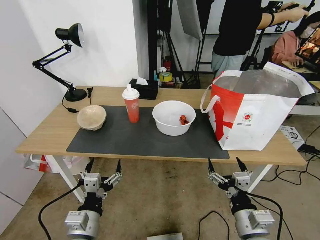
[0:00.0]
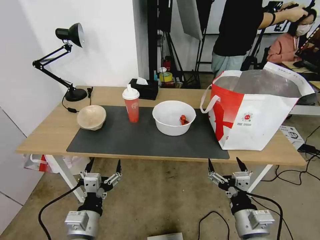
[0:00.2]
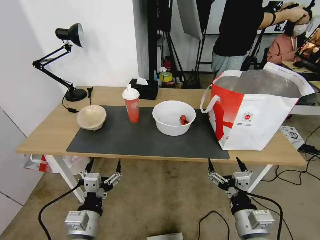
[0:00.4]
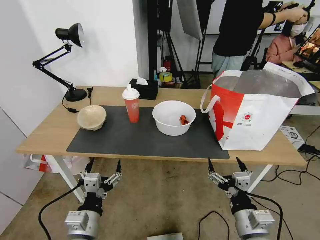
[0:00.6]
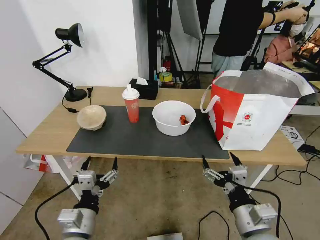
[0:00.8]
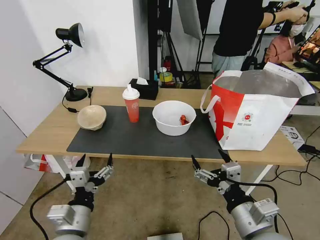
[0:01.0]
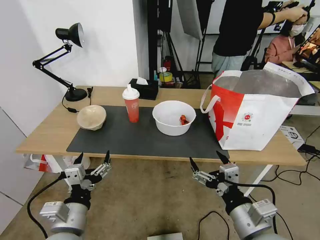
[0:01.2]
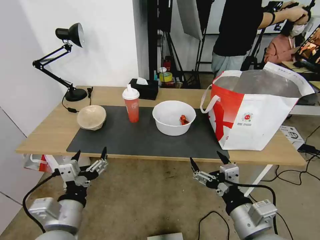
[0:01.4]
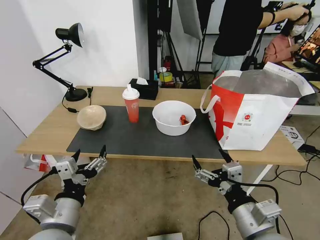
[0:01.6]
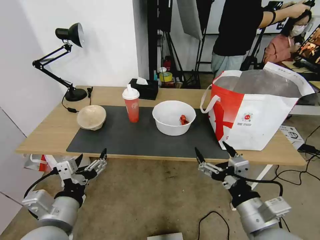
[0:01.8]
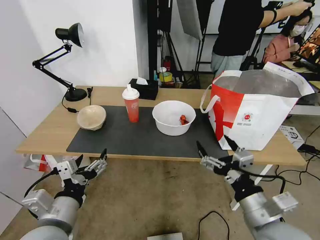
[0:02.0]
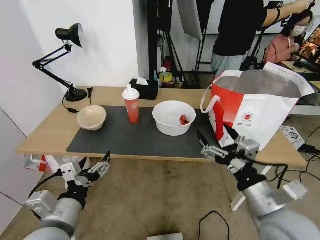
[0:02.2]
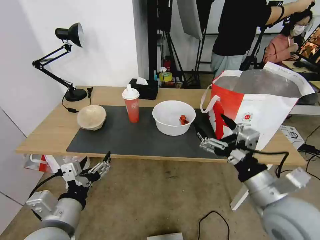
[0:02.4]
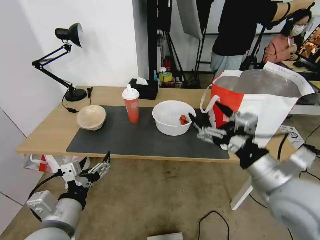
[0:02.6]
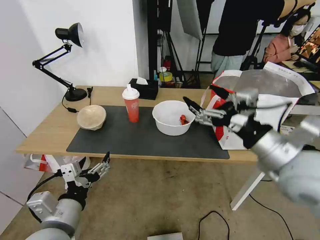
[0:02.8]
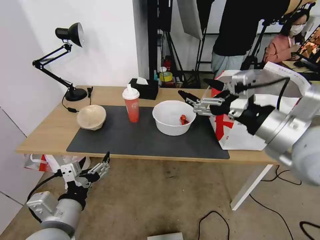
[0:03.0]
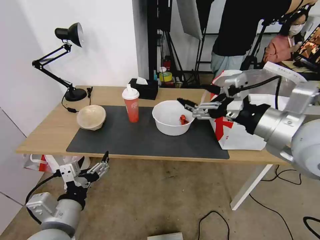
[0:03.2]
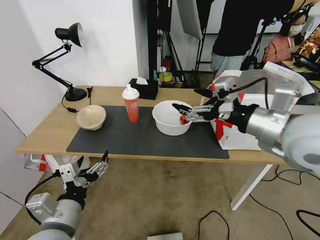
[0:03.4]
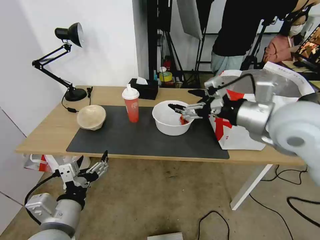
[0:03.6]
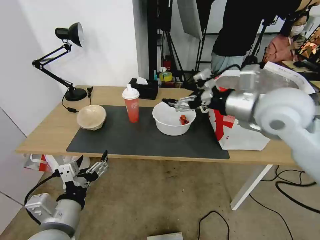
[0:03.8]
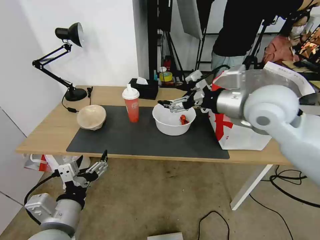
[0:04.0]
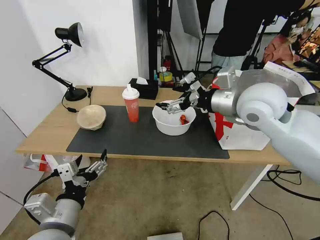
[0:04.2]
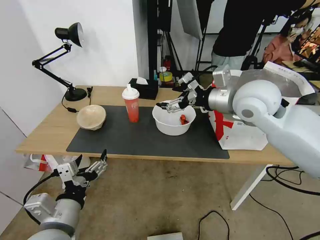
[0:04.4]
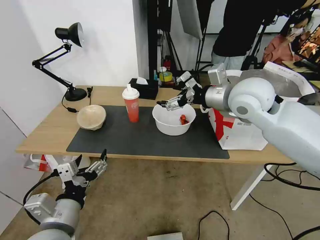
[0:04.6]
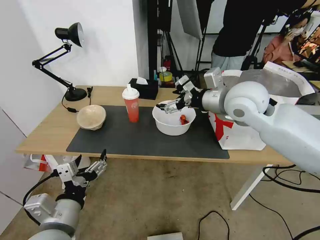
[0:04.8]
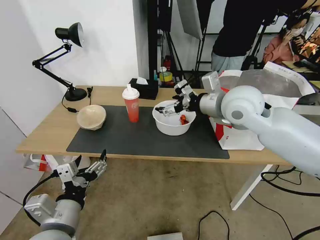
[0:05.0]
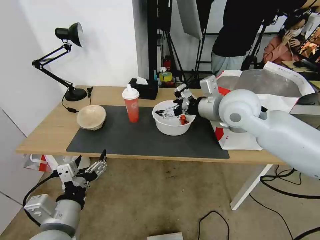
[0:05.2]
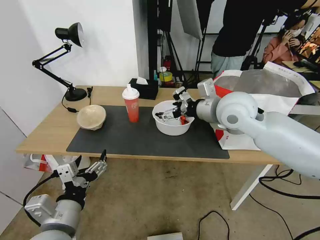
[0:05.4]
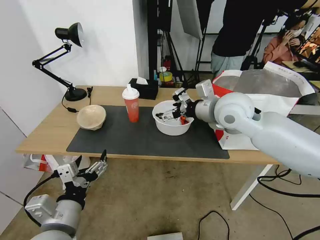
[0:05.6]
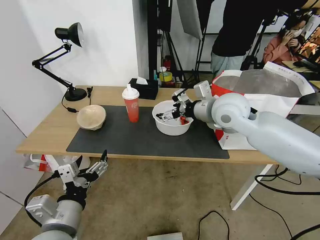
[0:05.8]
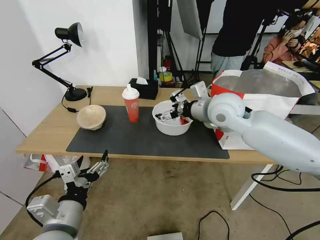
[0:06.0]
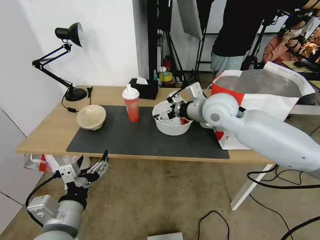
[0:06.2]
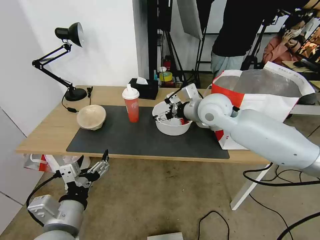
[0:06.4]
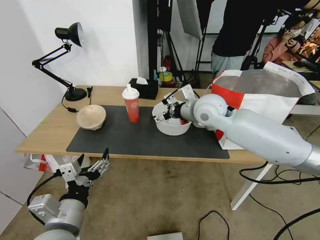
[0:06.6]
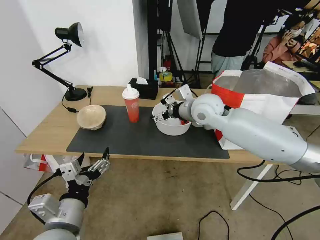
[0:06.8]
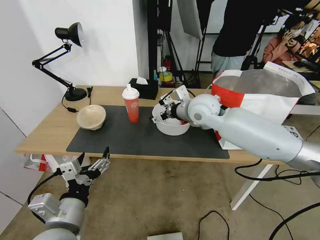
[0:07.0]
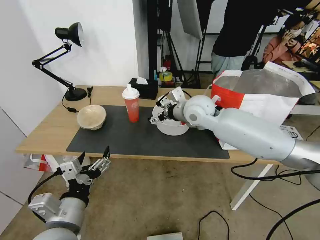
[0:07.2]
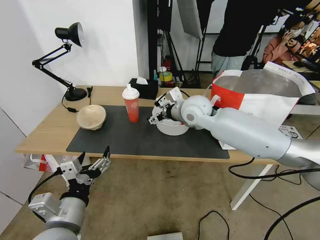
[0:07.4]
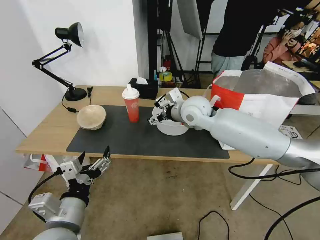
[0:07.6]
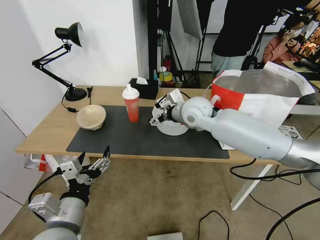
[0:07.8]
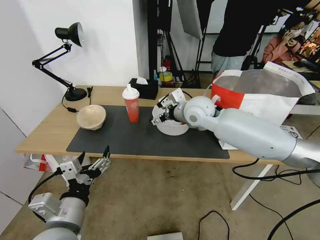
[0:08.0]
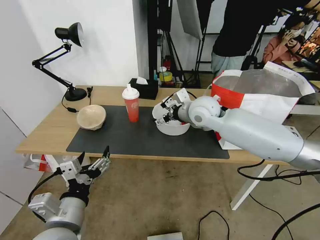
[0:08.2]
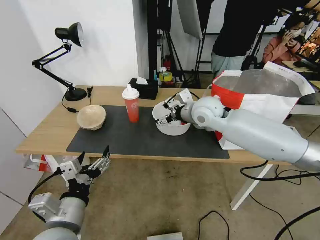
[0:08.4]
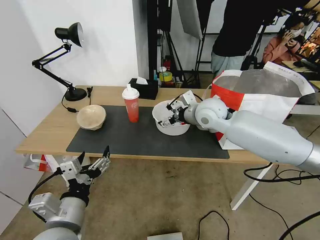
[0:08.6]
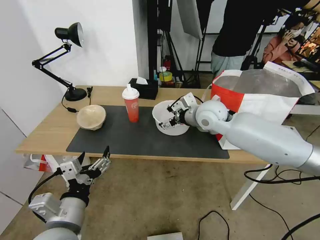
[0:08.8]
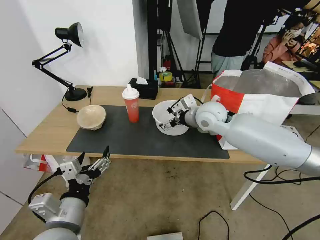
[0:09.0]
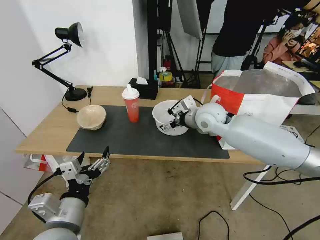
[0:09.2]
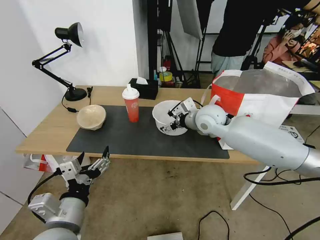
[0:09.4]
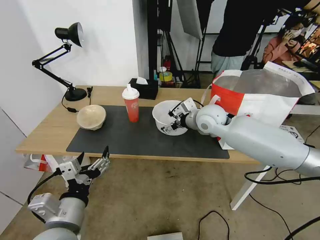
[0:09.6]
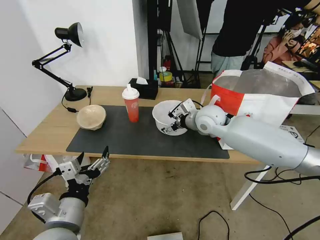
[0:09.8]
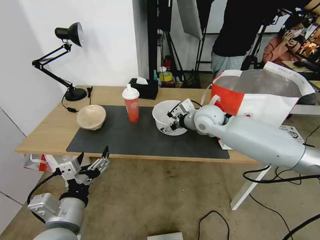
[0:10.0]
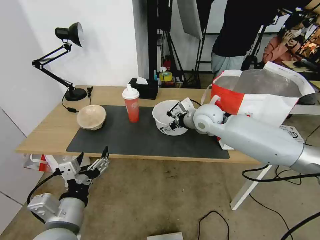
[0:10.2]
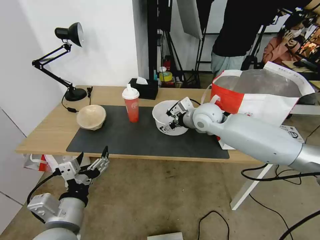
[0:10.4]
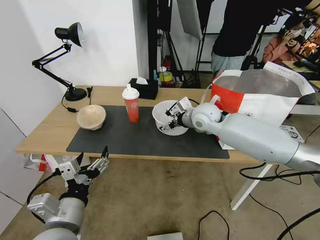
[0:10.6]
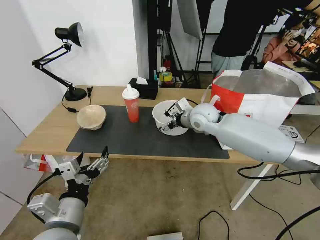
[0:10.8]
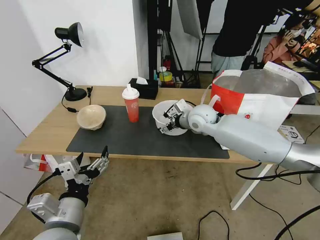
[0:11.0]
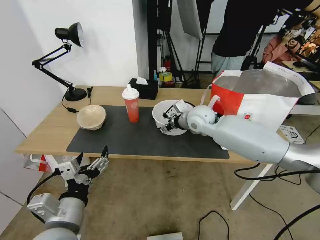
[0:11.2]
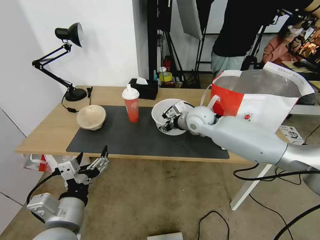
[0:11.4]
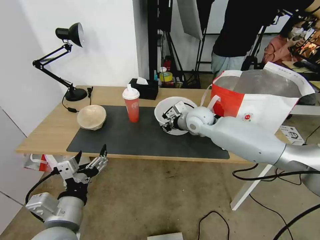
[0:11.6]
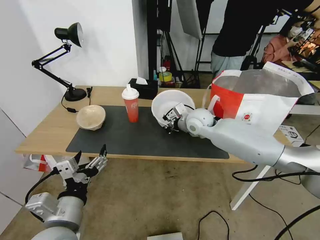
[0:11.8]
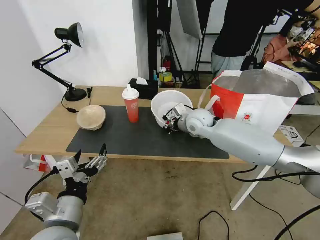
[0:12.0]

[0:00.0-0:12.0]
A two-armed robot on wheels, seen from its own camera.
Task of the whole recording: Pick up the trash from the table and place it into the takeout bag.
0:01.6 to 0:03.0: The right gripper heads upward and forward, covering some 25 cm.
0:03.0 to 0:04.4: The right gripper moves forward, some 15 cm.
0:04.4 to 0:06.0: The right gripper travels downward by some 5 cm.
0:06.0 to 0:07.6: The right gripper travels to the left by about 5 cm.
0:07.6 to 0:09.0: The right gripper moves to the right, some 5 cm.
0:09.0 to 0:10.4: The grippers make only small movements.
0:10.4 to 0:12.0: The right gripper closes up.

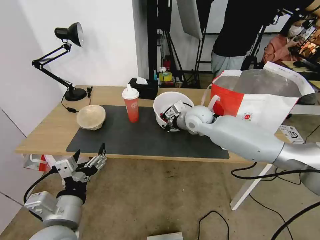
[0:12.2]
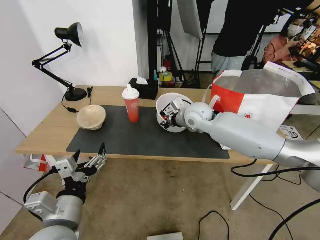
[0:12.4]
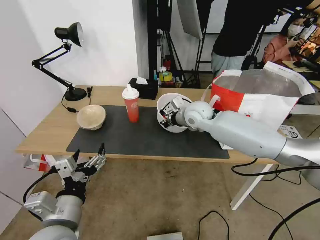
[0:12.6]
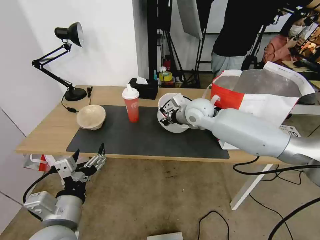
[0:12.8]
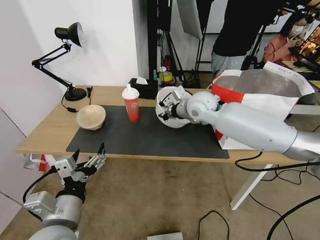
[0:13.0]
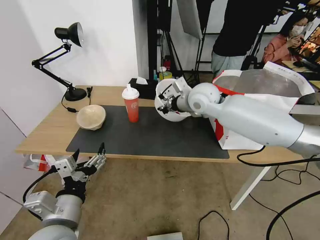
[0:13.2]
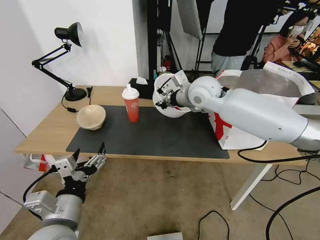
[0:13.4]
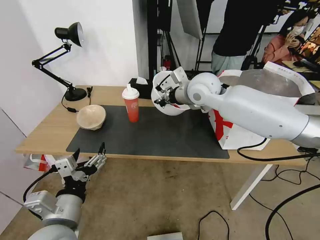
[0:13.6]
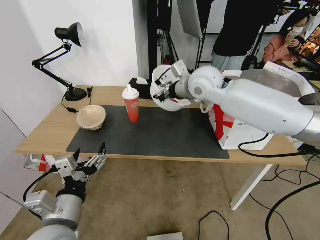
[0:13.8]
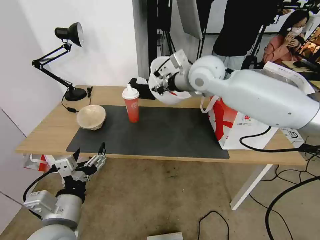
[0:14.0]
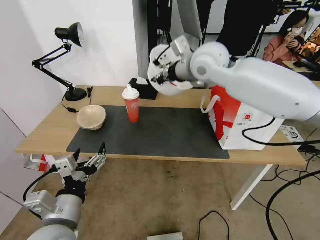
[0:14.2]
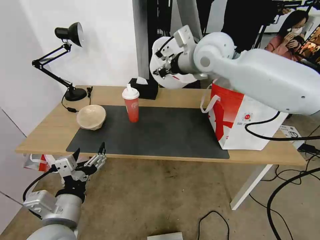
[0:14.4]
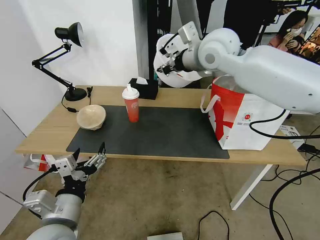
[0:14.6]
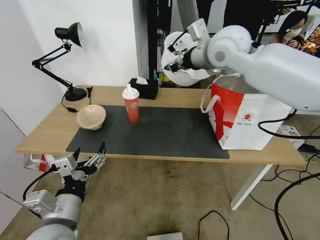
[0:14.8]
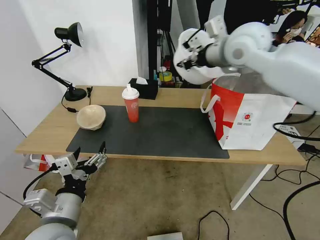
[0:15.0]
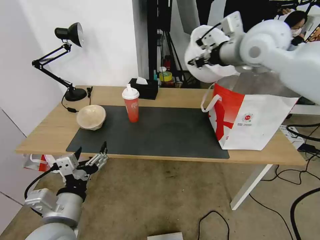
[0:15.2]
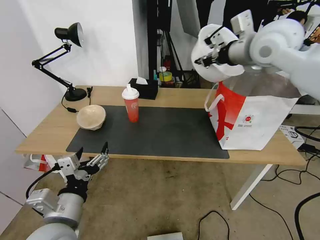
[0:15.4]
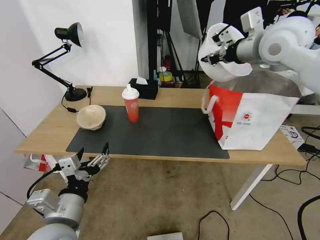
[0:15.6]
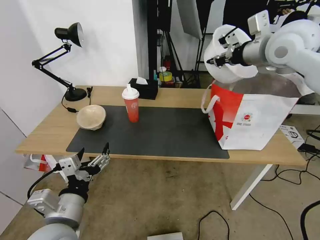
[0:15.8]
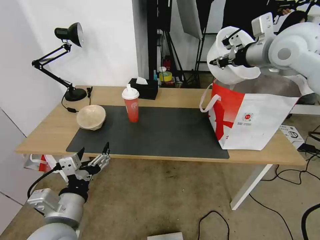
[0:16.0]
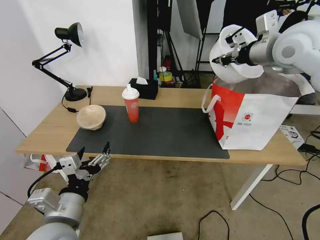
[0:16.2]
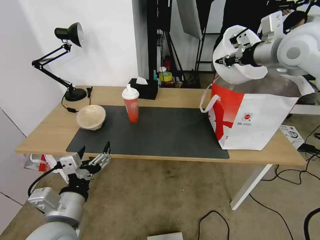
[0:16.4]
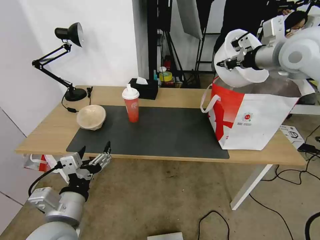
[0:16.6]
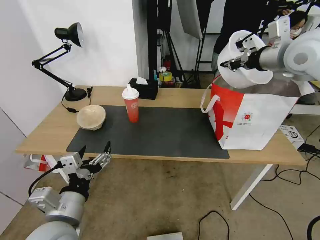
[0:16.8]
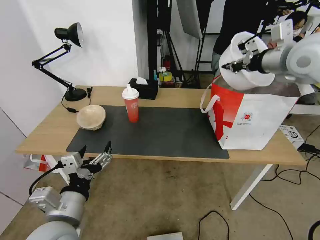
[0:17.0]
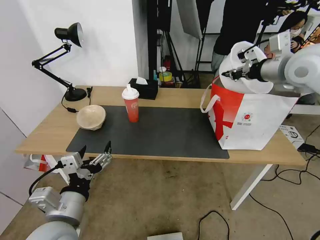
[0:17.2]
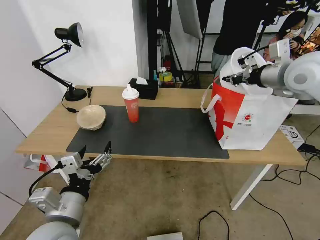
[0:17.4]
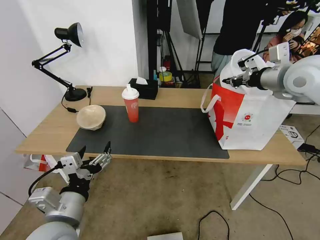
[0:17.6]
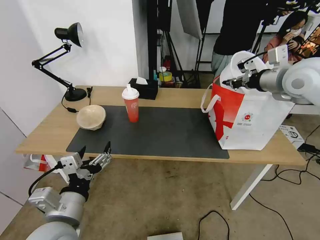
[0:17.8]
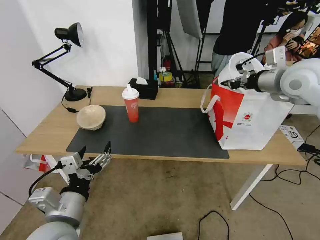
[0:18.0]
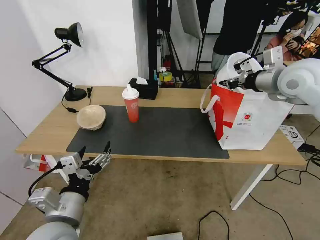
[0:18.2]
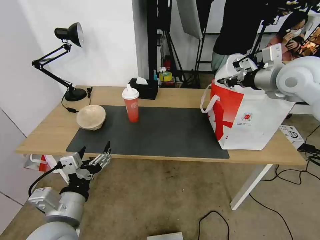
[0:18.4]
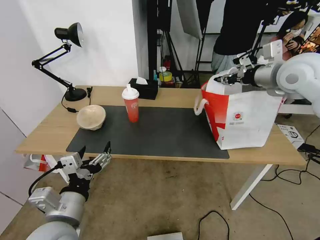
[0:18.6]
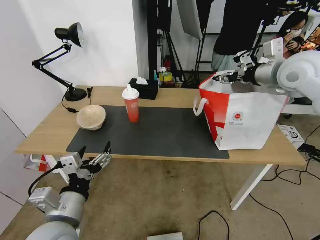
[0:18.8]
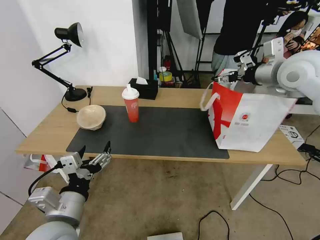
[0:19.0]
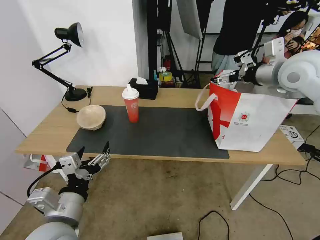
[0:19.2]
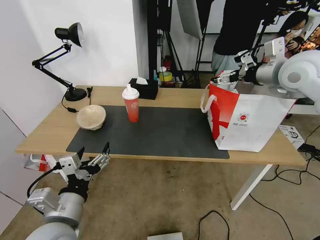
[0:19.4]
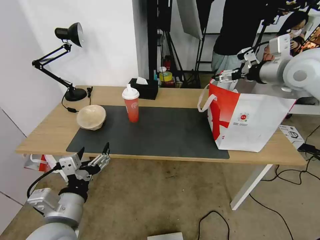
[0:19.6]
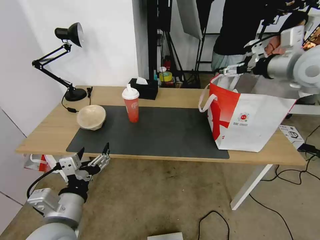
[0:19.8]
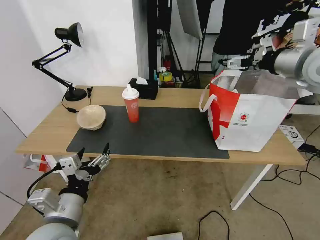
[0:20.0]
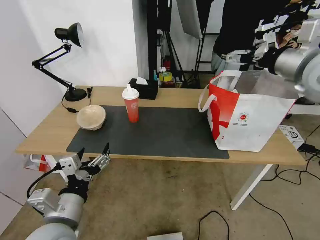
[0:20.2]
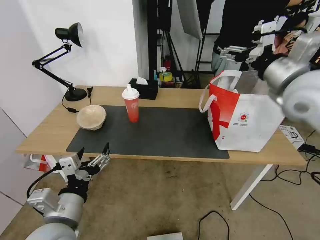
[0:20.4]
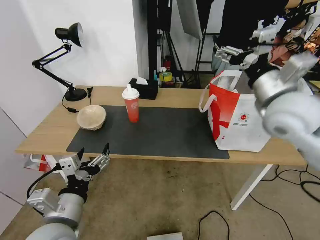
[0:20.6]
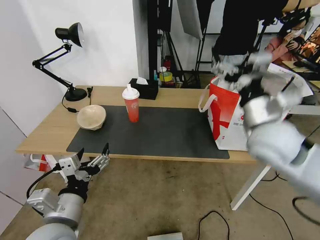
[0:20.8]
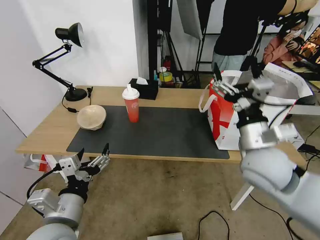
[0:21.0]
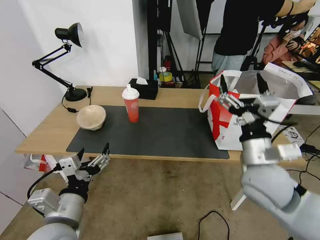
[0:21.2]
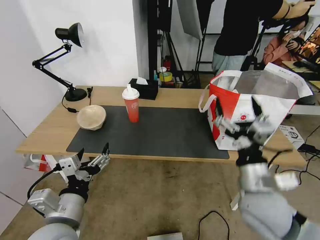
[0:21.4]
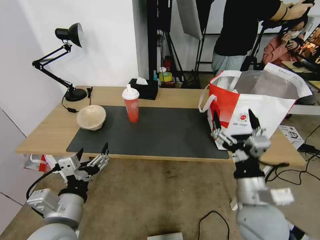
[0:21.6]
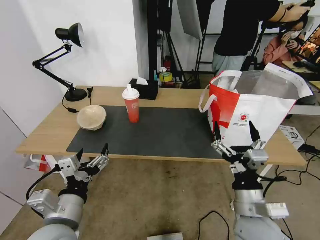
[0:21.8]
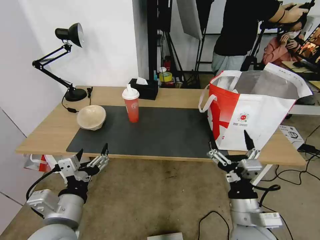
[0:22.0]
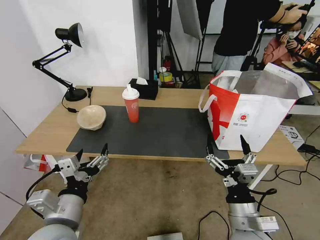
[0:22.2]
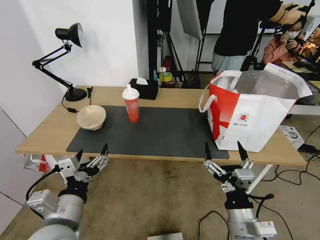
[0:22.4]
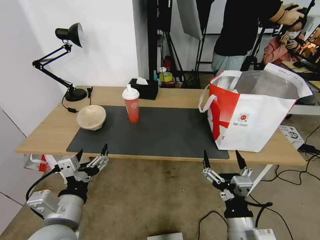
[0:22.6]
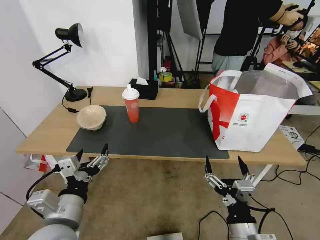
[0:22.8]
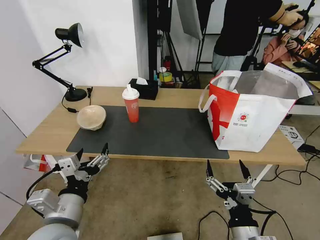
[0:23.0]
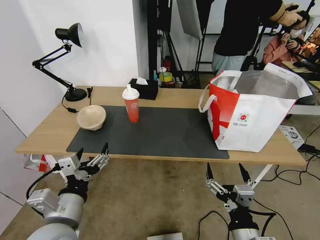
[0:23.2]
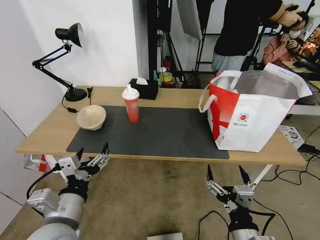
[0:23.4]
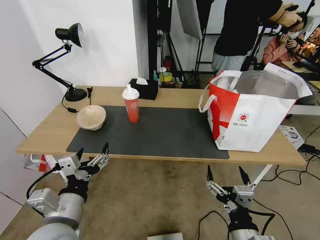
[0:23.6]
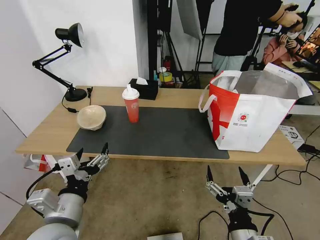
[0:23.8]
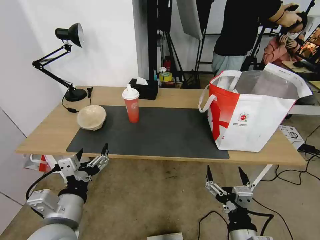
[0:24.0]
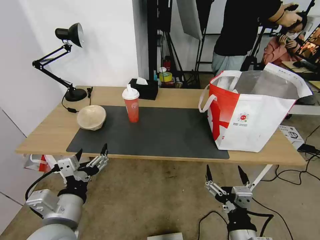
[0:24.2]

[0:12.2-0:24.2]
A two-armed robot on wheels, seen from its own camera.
Task of the whole recording: Pick up the trash from the table and place it into the takeout bag.
0:12.2 to 0:13.8: The right gripper is displaced upward by some 15 cm.
0:13.8 to 0:15.2: The right gripper heads to the right and upward, covering about 15 cm.
0:15.2 to 0:16.6: The right gripper goes roughly 10 cm to the right.
0:16.6 to 0:18.2: The right gripper travels downward by approximately 5 cm.
0:18.2 to 0:19.8: The right gripper opens its fingers.
0:19.8 to 0:21.2: The right gripper shifts some 30 cm downward, backward and to the left.
0:21.2 to 0:22.6: The right gripper heads backward and downward, covering about 20 cm.
0:22.6 to 0:24.2: The grippers move only a little.
